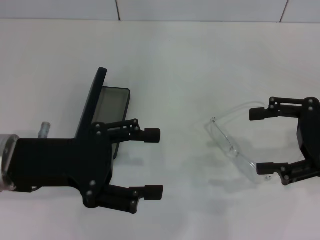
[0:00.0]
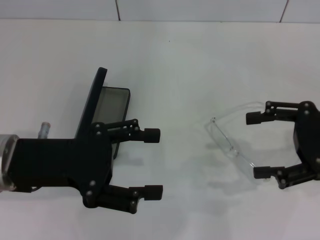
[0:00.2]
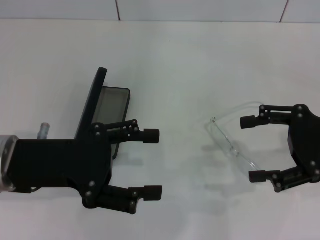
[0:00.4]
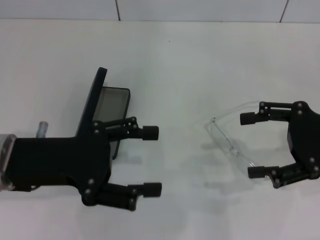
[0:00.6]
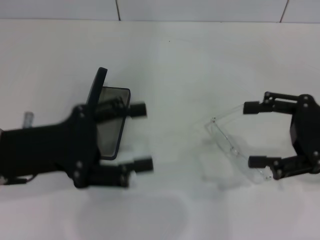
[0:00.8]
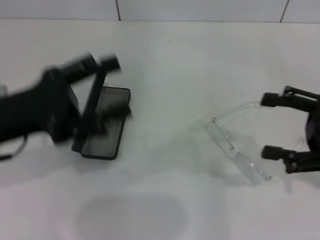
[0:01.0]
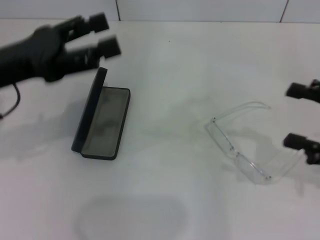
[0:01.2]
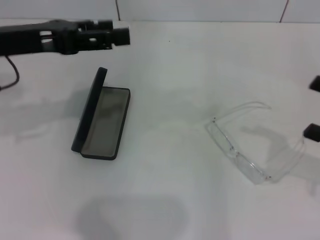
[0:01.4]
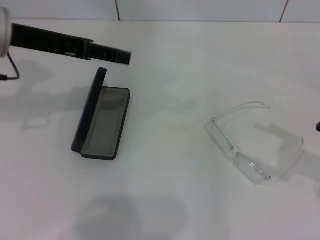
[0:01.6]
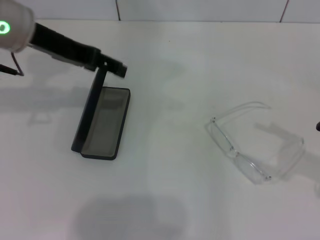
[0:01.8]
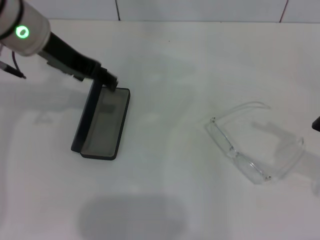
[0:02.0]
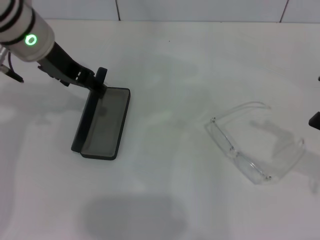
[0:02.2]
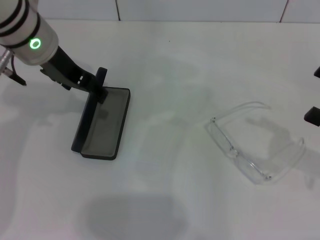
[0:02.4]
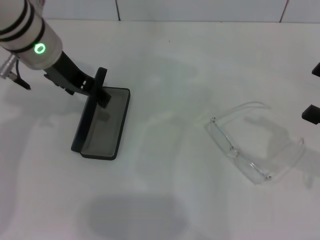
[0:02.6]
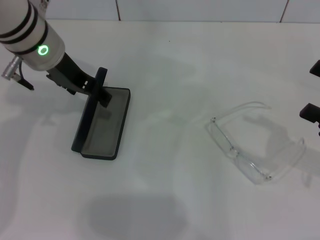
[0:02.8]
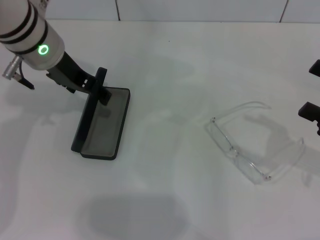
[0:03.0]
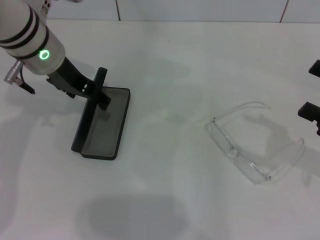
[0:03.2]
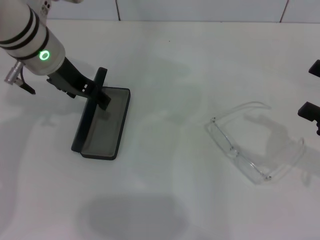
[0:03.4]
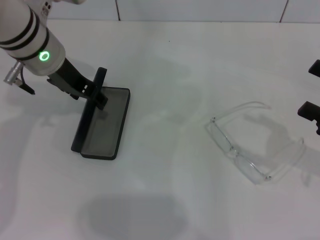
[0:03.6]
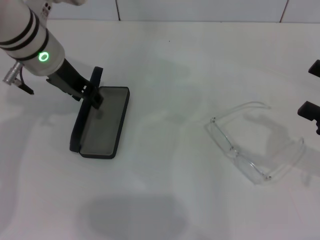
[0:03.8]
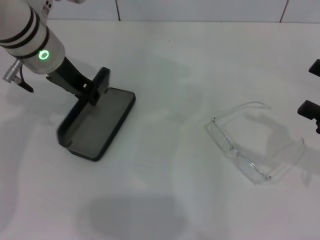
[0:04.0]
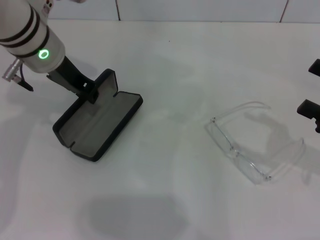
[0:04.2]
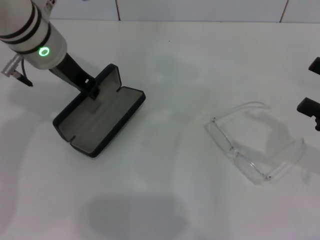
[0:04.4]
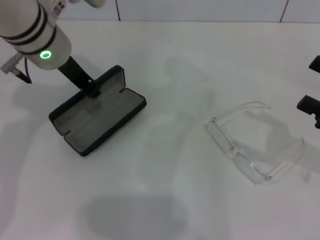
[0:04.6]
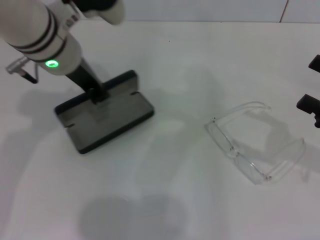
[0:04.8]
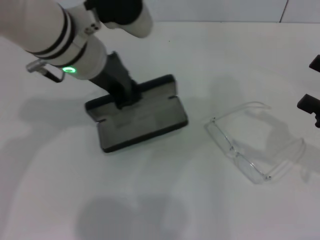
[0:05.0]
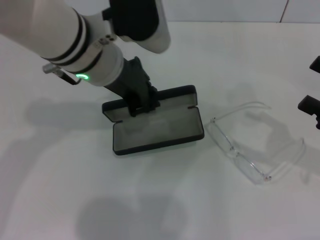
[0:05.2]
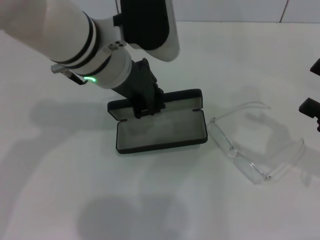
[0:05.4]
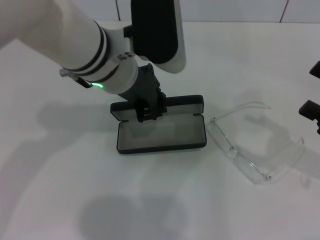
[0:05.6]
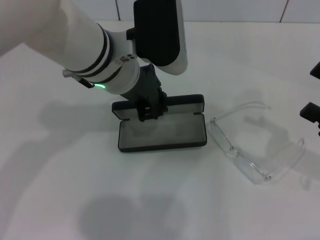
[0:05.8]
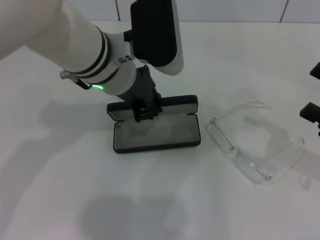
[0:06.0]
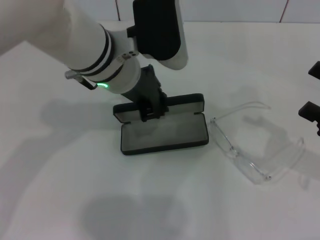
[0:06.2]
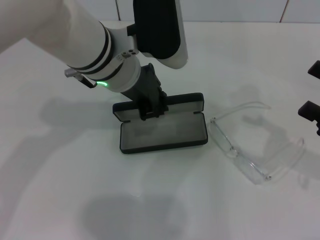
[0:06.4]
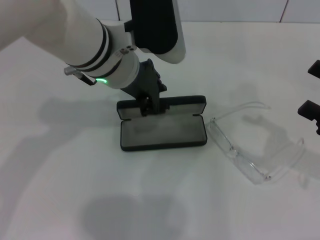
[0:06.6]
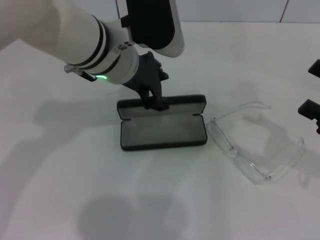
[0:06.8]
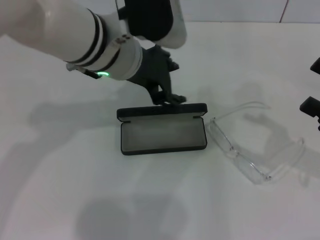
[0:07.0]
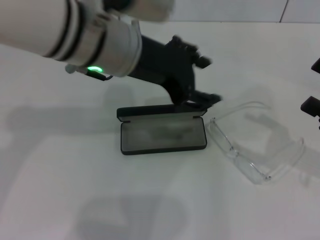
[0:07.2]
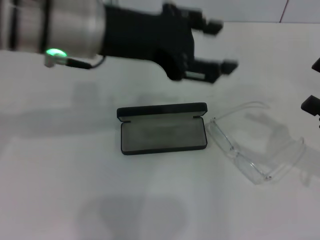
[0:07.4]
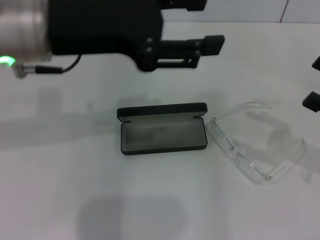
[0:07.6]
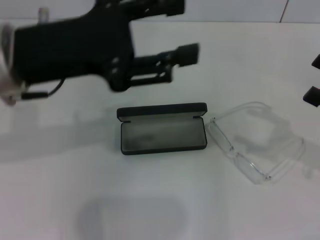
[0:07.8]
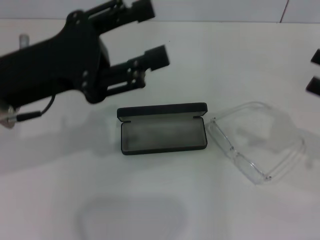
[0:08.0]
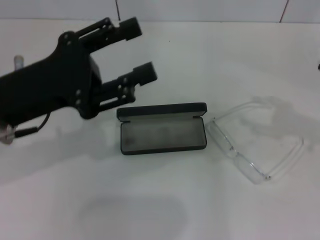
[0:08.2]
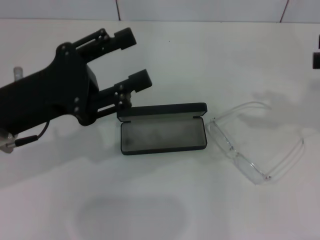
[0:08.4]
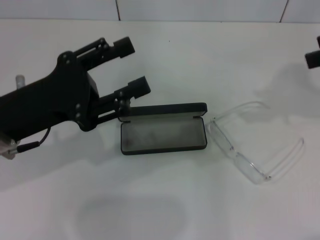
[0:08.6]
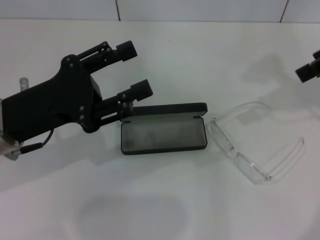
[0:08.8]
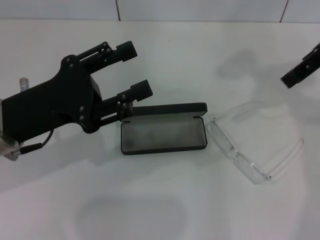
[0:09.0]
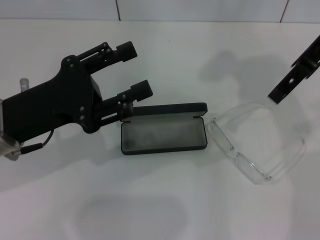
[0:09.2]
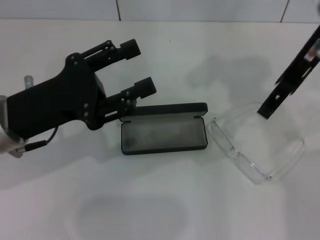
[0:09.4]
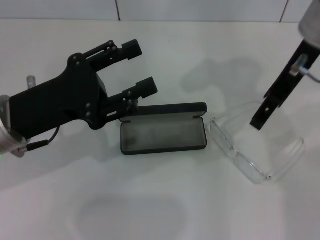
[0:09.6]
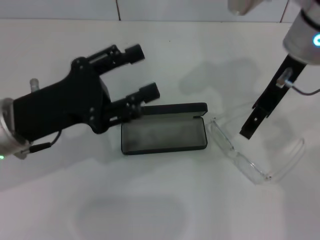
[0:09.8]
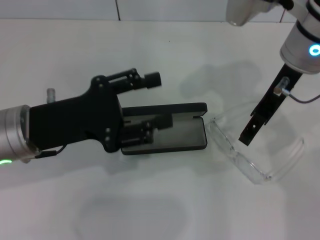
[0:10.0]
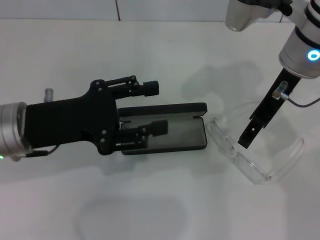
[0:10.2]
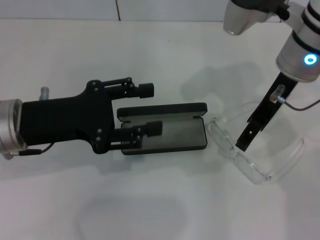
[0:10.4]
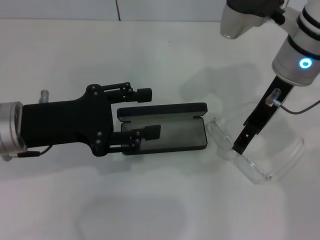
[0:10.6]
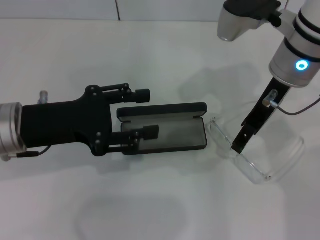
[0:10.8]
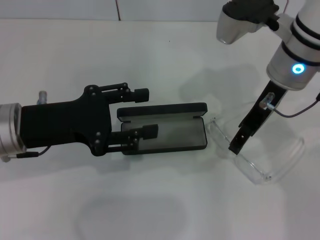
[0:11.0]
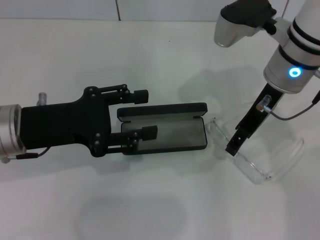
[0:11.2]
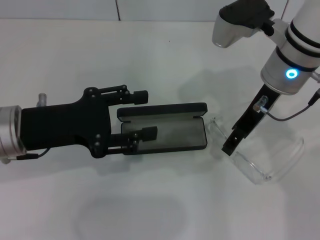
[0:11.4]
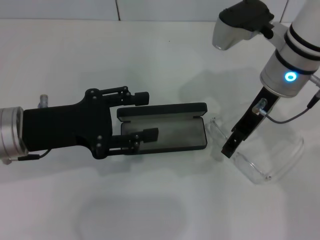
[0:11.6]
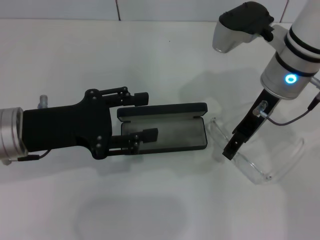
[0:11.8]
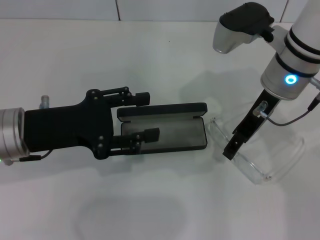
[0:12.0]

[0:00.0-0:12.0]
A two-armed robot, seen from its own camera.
Step, 0:00.0 to 0:04.4: Grab the glasses case with your left hand.
Step, 0:04.6 to 0:06.8: Place the glasses case in the center of the table with your left hand.
0:00.0 to 0:01.6: The left gripper goes approximately 15 cm forward and upward; the right gripper goes roughly 10 cm to the right and backward.
0:01.6 to 0:03.0: The left gripper is displaced to the right by about 5 cm.
0:03.0 to 0:04.4: The left gripper closes its fingers.
0:04.4 to 0:06.0: The left gripper is displaced to the right by about 10 cm.
0:06.0 to 0:07.6: The left gripper heads to the left and upward, covering about 10 cm, and opens its fingers.
0:07.6 to 0:09.0: The right gripper travels upward, forward and to the left by about 25 cm. Meanwhile the left gripper heads downward and to the left, covering about 15 cm.
0:09.0 to 0:10.4: The right gripper is displaced downward and to the left by approximately 15 cm.
0:10.4 to 0:12.0: The grippers stay close to where they were, moving slightly.

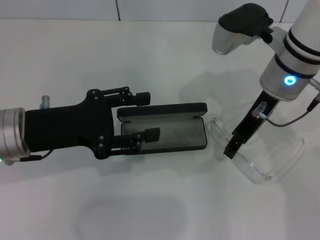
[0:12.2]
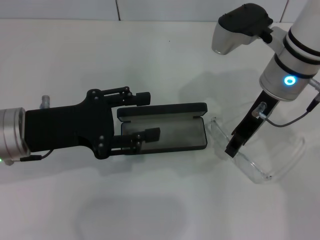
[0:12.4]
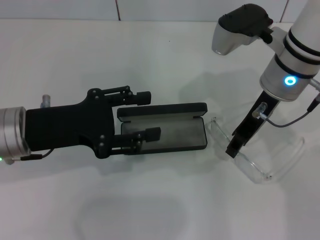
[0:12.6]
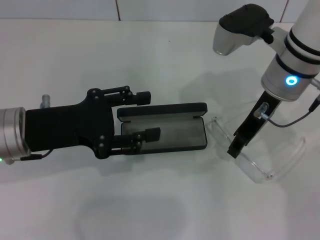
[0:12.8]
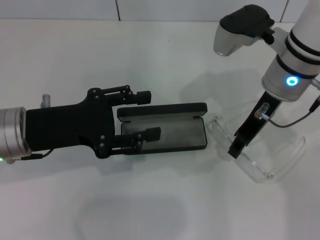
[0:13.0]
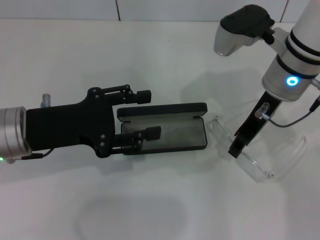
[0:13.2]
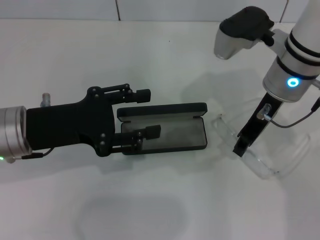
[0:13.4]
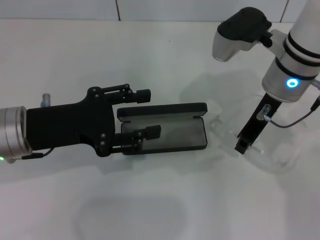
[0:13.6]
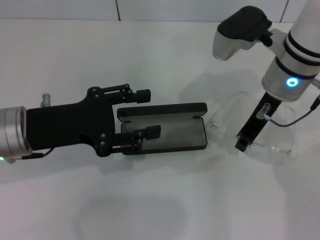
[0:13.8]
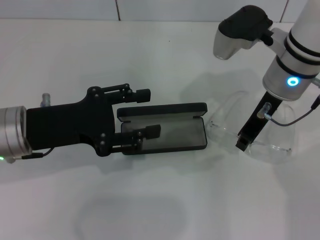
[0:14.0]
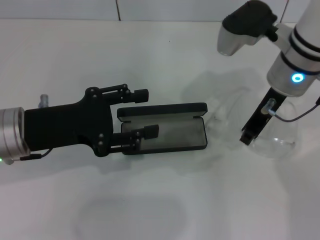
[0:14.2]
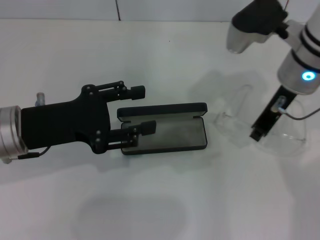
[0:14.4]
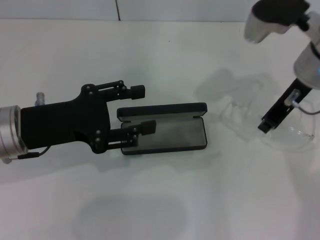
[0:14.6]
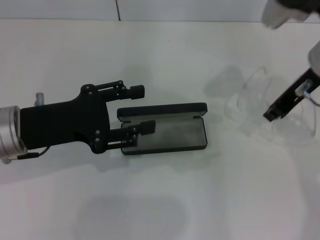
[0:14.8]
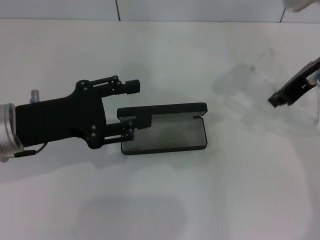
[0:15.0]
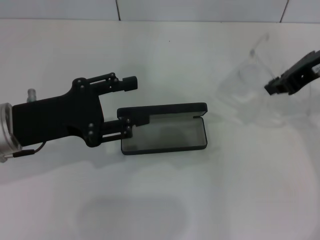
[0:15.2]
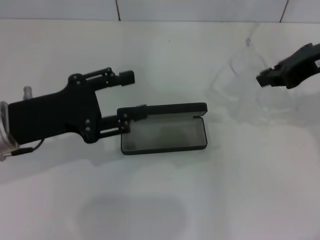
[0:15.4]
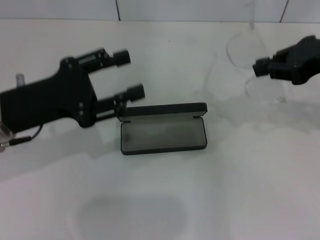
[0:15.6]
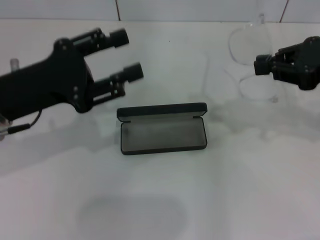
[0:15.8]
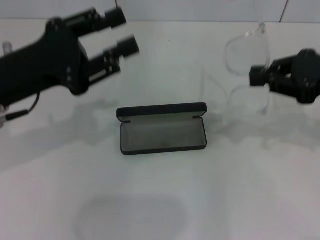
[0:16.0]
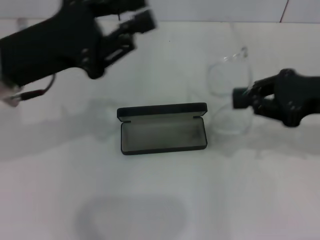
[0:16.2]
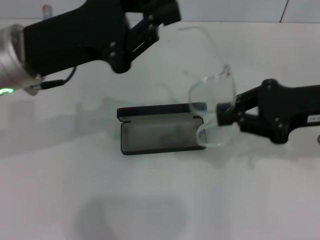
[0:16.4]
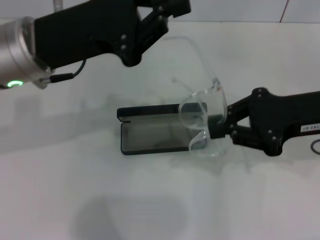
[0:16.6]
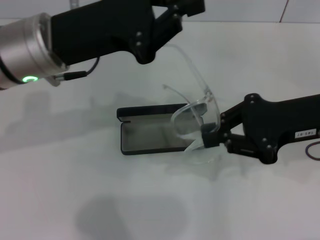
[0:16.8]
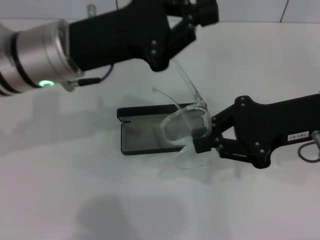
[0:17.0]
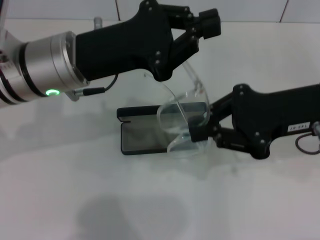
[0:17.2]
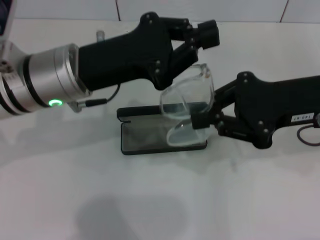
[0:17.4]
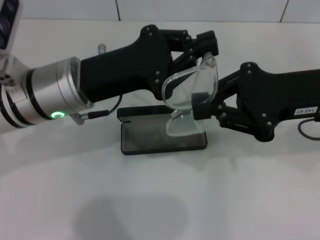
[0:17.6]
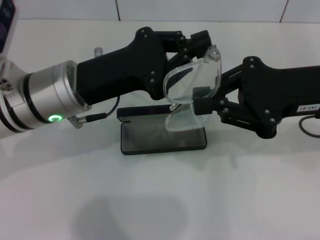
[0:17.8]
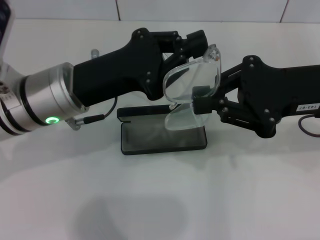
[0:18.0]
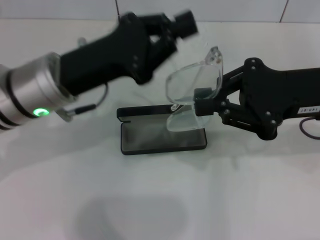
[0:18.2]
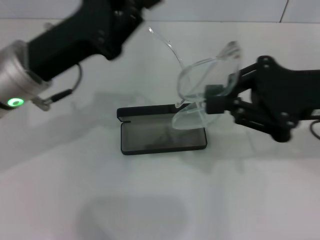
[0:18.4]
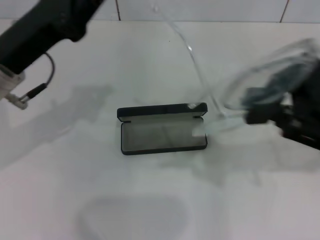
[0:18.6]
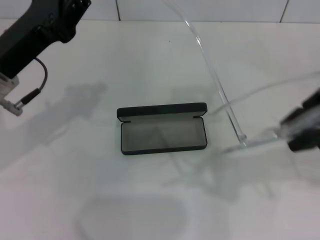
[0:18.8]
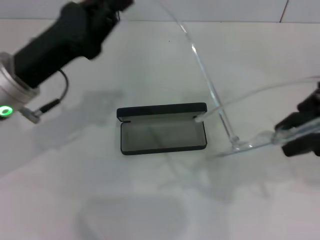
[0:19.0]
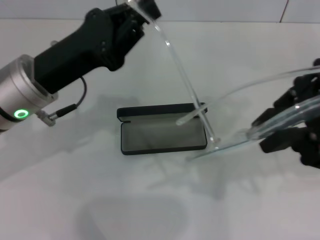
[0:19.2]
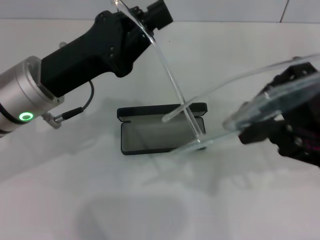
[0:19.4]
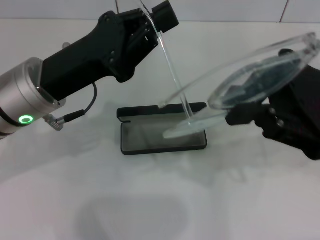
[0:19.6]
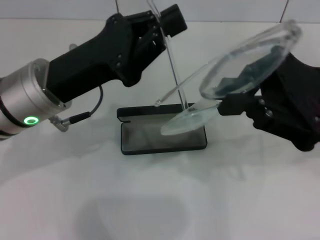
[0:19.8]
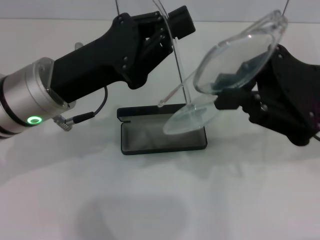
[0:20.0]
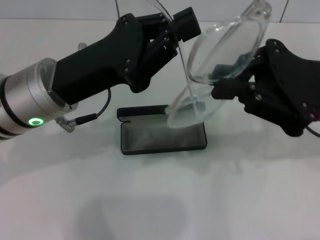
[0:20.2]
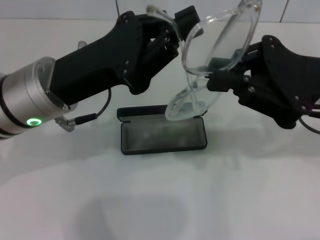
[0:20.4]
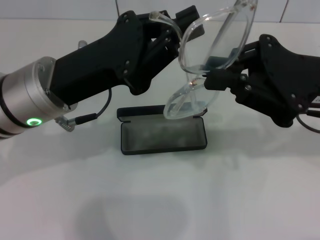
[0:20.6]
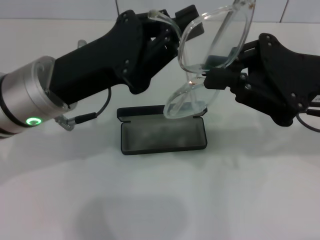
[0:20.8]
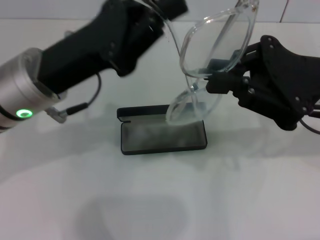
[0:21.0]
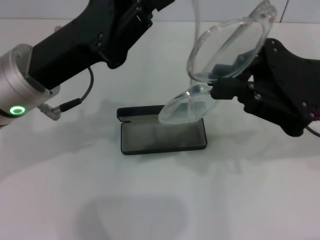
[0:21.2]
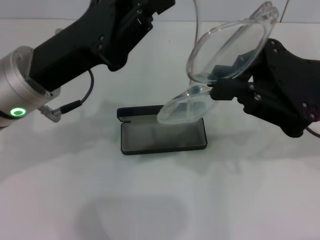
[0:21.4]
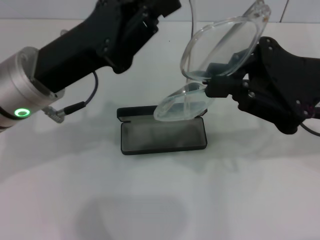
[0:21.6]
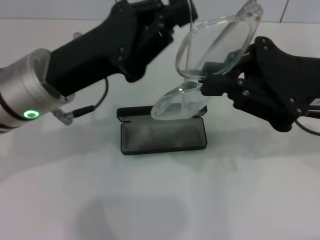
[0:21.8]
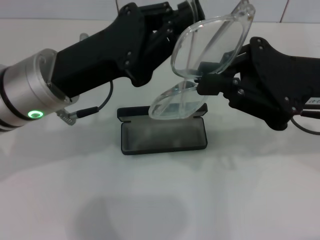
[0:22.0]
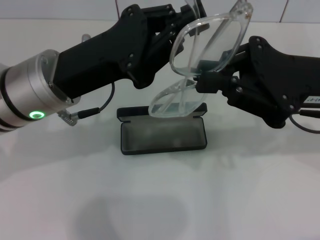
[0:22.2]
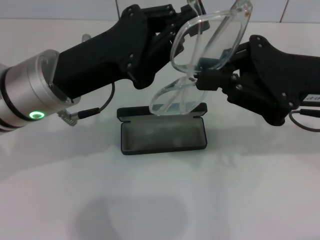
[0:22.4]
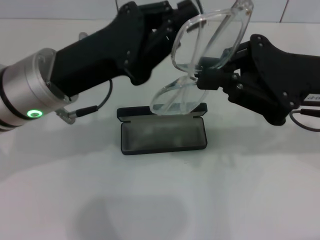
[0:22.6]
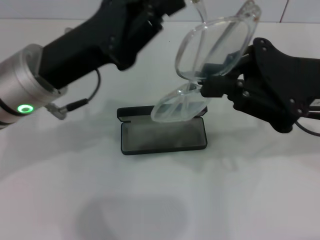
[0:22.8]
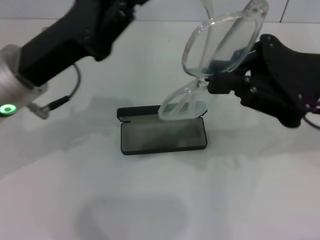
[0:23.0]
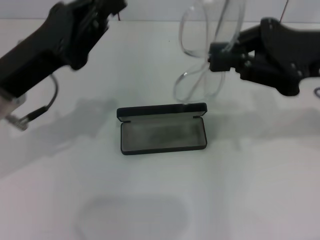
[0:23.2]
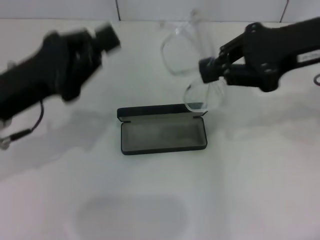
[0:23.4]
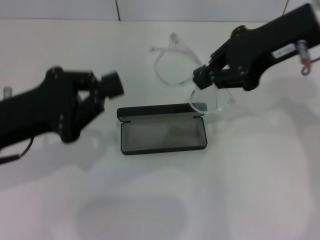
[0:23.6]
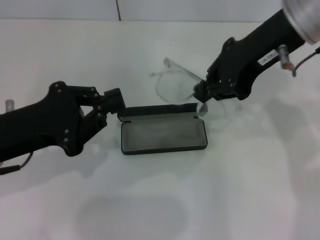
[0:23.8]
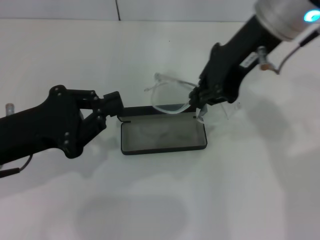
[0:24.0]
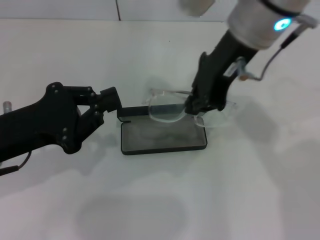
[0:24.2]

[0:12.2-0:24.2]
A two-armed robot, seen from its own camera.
Step, 0:14.2 to 0:22.2: Lift the glasses with your right hand.
0:12.2 to 0:13.8: The right gripper closes up.
0:13.8 to 0:15.2: The right gripper is displaced to the right and upward by approximately 10 cm.
0:15.2 to 0:16.6: The left gripper goes roughly 10 cm upward and to the right, and closes its fingers, while the right gripper moves backward and downward, approximately 10 cm.
0:22.6 to 0:24.2: The right gripper travels to the left, upward and forward by roughly 15 cm; the left gripper shifts approximately 10 cm to the left and backward.
